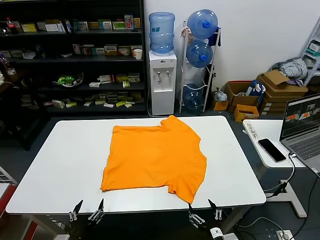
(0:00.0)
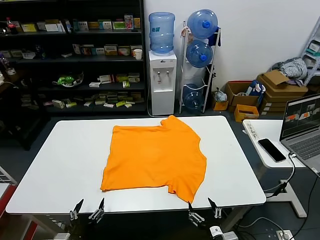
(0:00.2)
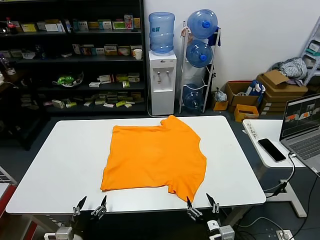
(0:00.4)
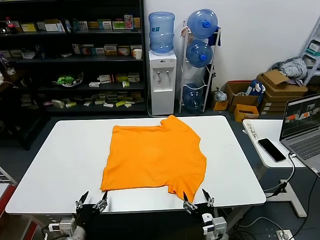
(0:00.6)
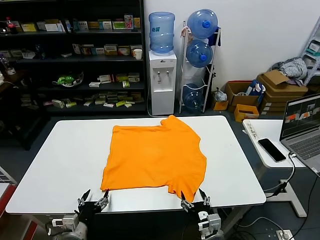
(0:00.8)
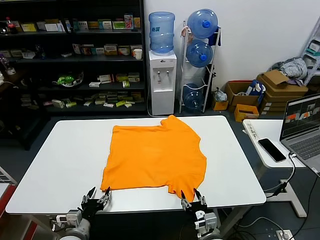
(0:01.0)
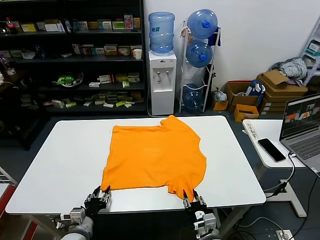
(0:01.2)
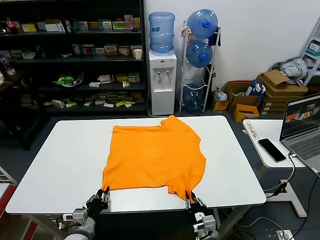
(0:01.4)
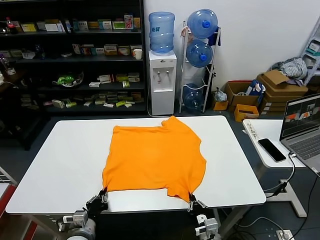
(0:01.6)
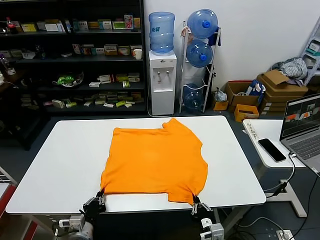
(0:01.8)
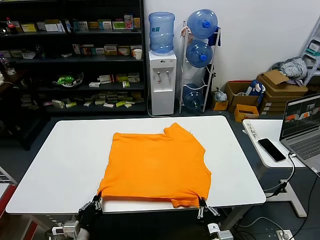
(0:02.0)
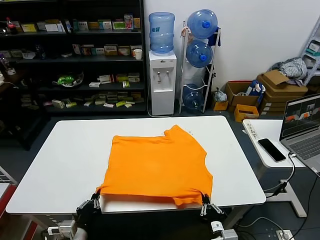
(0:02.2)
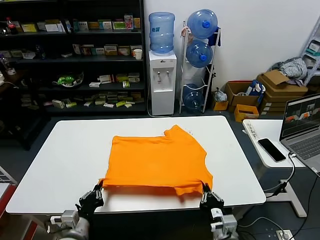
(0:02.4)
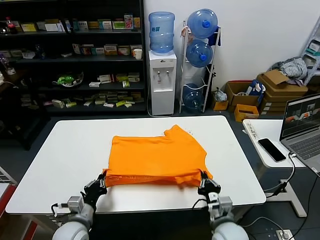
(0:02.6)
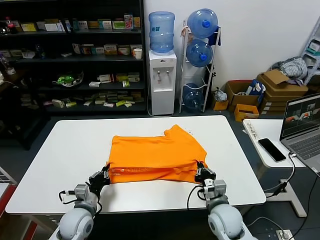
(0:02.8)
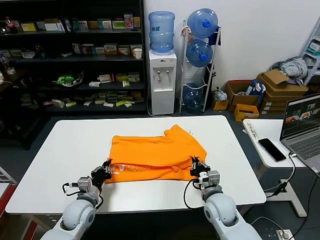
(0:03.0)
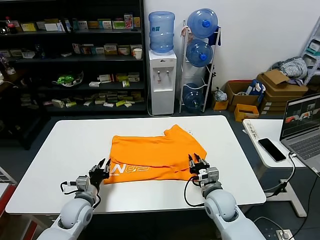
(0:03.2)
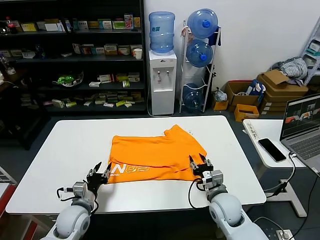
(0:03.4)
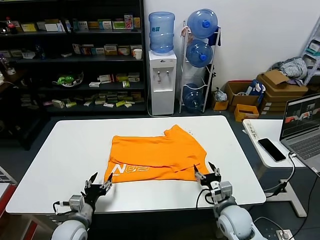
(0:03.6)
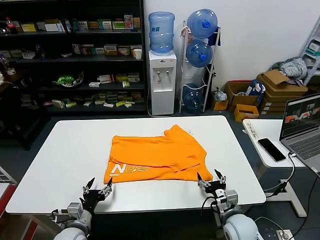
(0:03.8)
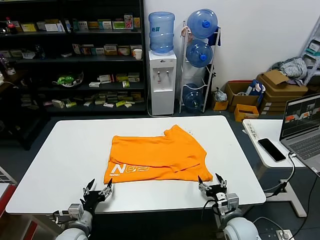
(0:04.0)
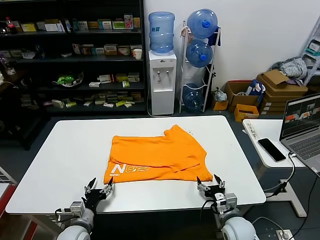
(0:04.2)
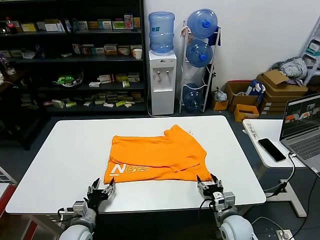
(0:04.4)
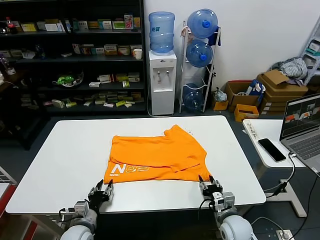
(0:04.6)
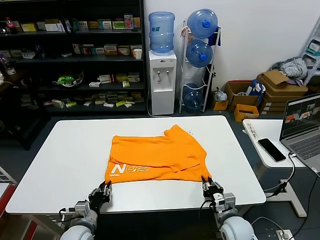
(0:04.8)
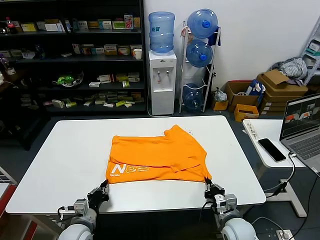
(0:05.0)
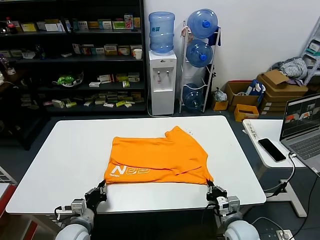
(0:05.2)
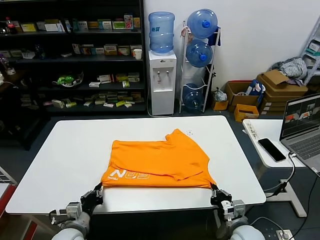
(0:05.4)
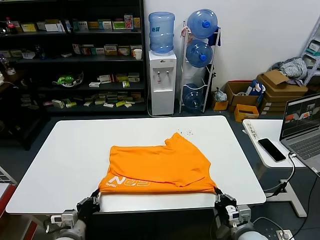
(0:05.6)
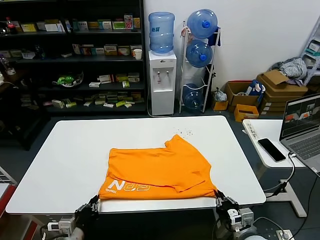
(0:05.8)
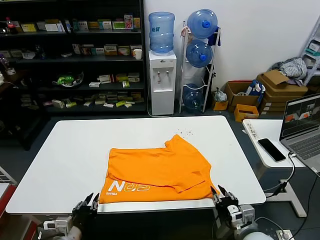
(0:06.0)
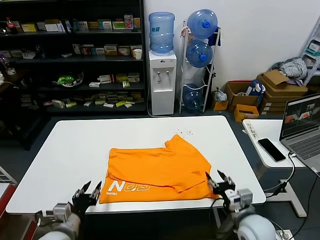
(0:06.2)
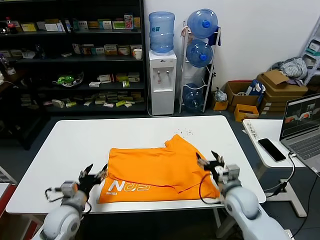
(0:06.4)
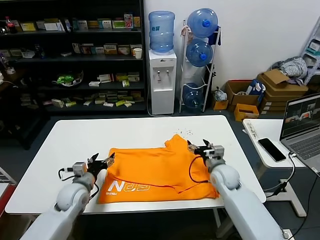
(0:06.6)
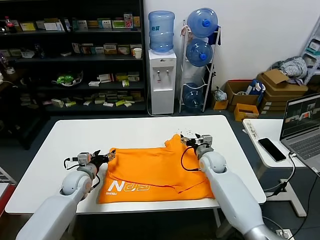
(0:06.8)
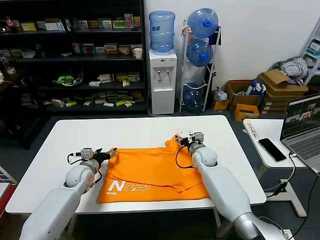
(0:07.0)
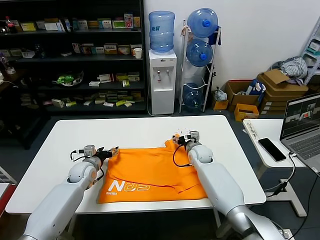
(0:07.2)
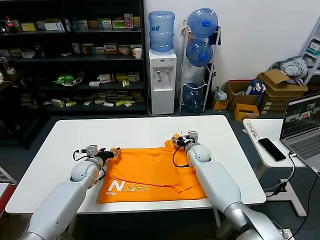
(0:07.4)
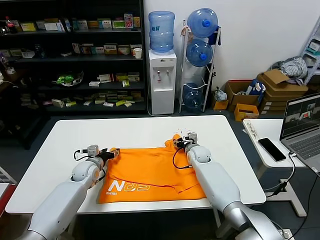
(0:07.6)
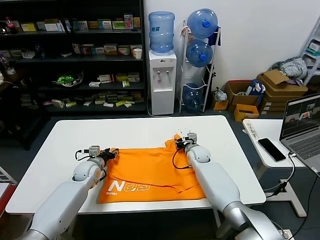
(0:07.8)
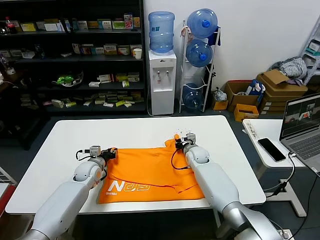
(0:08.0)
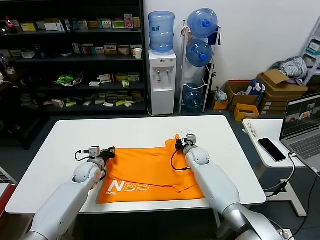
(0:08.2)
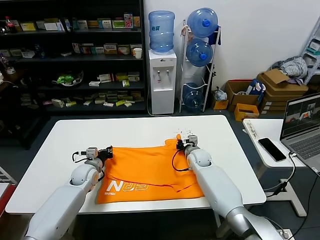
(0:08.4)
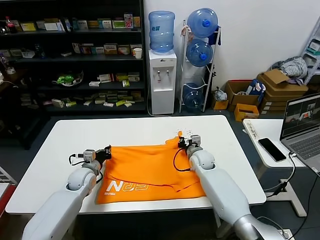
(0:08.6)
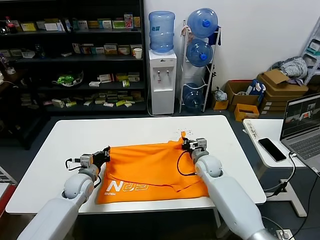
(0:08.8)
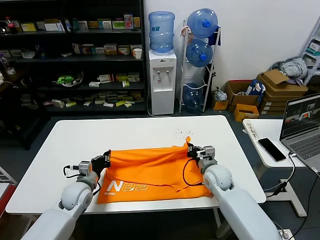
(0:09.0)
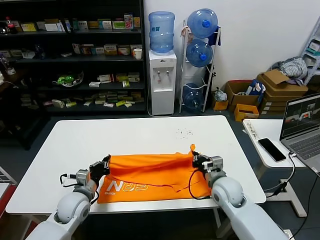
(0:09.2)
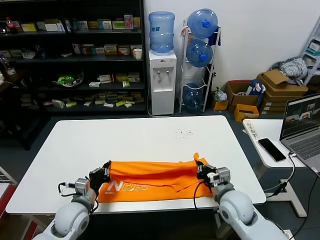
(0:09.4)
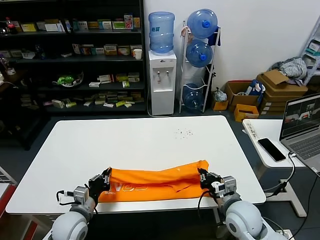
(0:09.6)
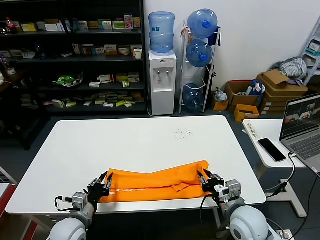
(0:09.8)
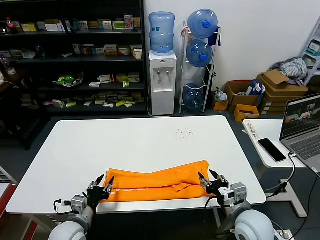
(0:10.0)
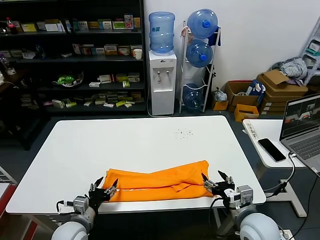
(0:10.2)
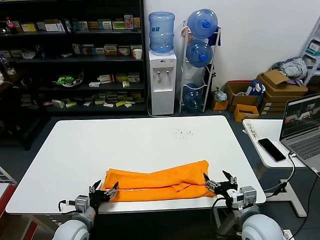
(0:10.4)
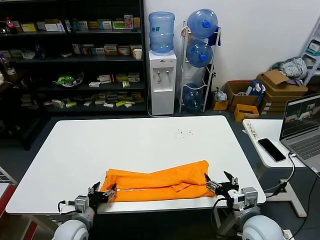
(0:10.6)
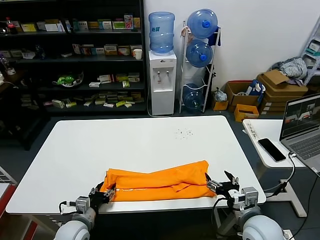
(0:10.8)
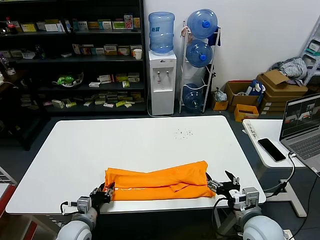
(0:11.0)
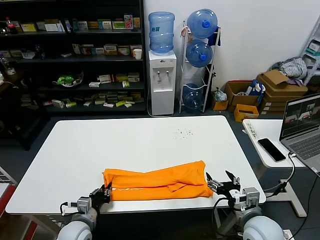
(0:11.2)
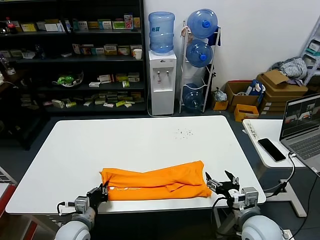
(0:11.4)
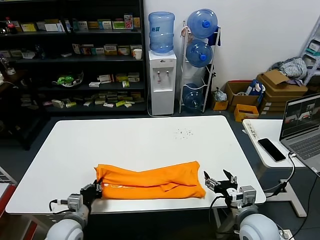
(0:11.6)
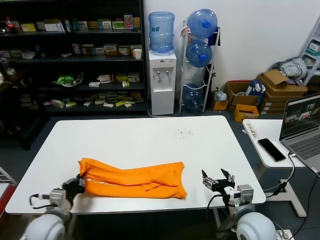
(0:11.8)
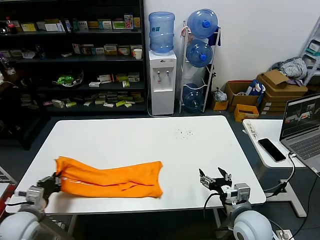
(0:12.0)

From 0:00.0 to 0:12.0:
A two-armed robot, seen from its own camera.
Task of the whole recording: fold and organize the clothes.
Step, from 0:00.0 to 0:01.6: use both grippers simultaneously to clamp the lower edge of the clothing fabric.
Step, from 0:01.8 to 0:03.2: use both grippers to drag the lower edge of the fabric forward and fold it over the upper edge.
Step, from 0:03.4 to 0:05.8: Drag the clothes downward with both gripper.
Step, from 0:06.0 to 0:08.2: use both grippers simultaneously to clamp the upper edge of the clothing fabric.
Step, from 0:08.4 to 0:09.8: use both grippers to drag the upper edge of the fabric backward and fold it over the lower edge.
Step, from 0:10.0 to 0:11.4: use the left gripper to clamp the left edge of the fabric.
From 0:01.6 to 0:03.0: The right gripper is displaced forward and upward by about 15 cm, while the left gripper is displaced forward by about 10 cm.
From 0:03.0 to 0:04.4: The right gripper is displaced downward and to the right by about 10 cm, and opens, while the left gripper is displaced backward by roughly 5 cm, and opens its fingers.
From 0:04.4 to 0:06.0: The right gripper travels backward and upward by approximately 10 cm, and closes, then opens again; the left gripper is displaced upward and backward by approximately 10 cm, and closes.
From 0:06.0 to 0:07.6: The grippers both shift forward by approximately 30 cm. The right gripper opens its fingers; the left gripper opens up.
From 0:07.6 to 0:09.0: Both grippers move backward, about 10 cm. The right gripper closes. The left gripper closes.
From 0:09.0 to 0:10.4: The left gripper moves backward, roughly 15 cm, and opens its fingers. Meanwhile the right gripper moves backward, approximately 20 cm, and opens its fingers.
From 0:10.4 to 0:12.0: The left gripper shifts some 15 cm to the left and upward, and closes its fingers.

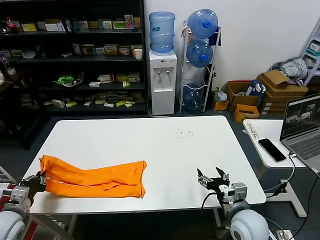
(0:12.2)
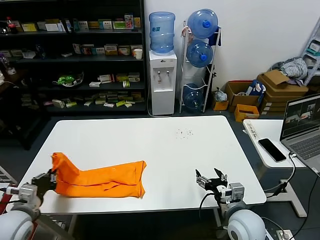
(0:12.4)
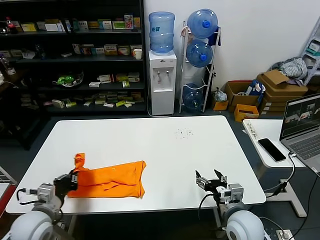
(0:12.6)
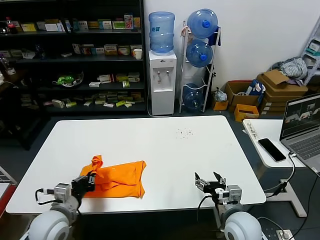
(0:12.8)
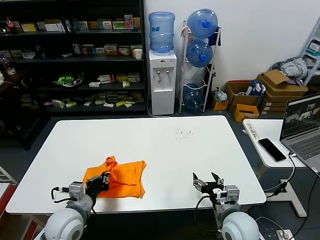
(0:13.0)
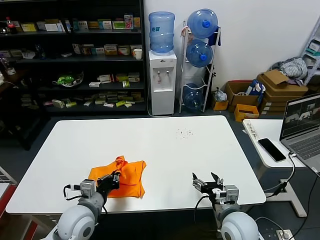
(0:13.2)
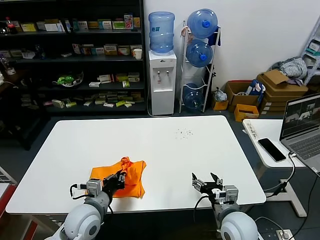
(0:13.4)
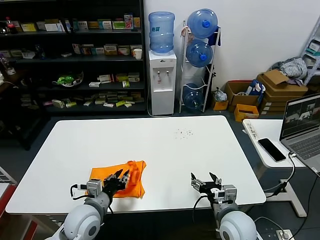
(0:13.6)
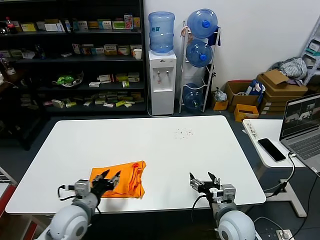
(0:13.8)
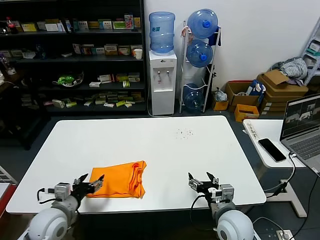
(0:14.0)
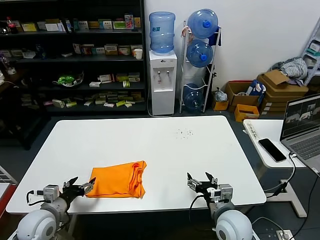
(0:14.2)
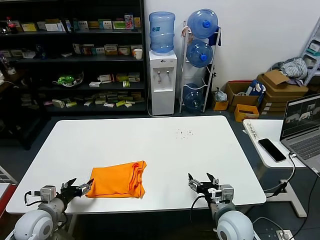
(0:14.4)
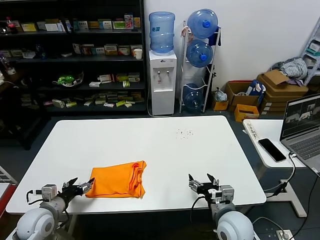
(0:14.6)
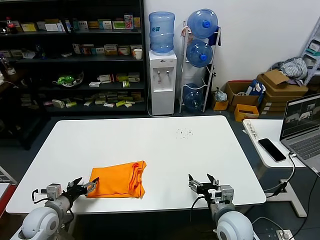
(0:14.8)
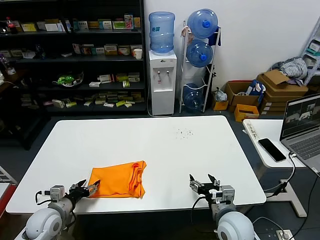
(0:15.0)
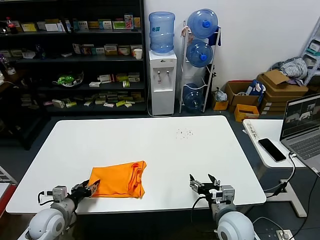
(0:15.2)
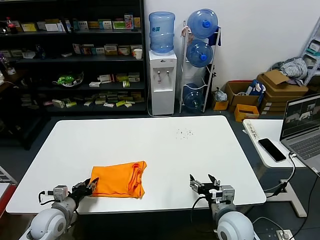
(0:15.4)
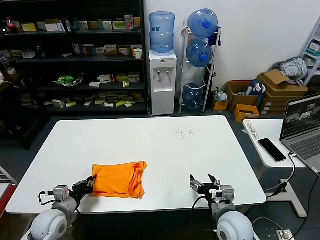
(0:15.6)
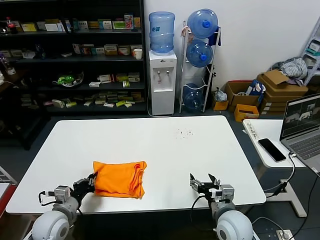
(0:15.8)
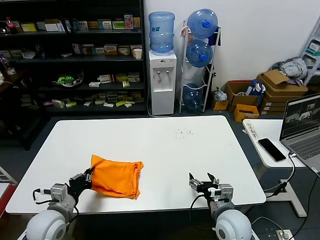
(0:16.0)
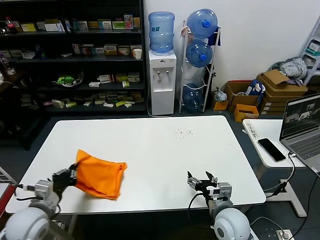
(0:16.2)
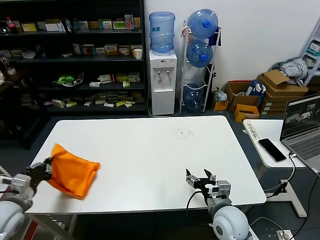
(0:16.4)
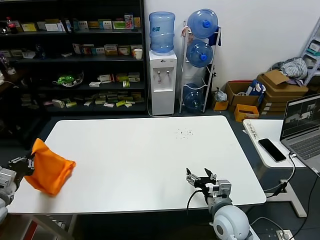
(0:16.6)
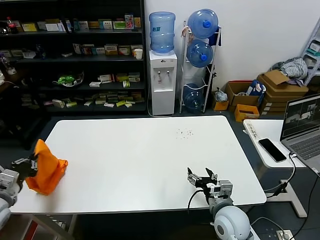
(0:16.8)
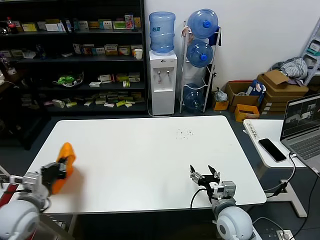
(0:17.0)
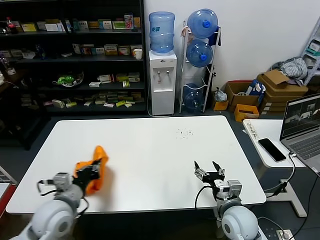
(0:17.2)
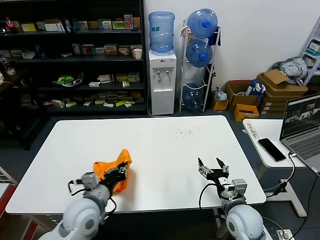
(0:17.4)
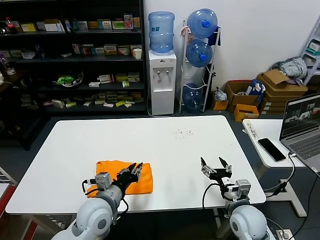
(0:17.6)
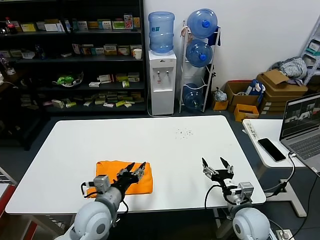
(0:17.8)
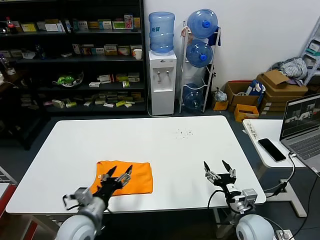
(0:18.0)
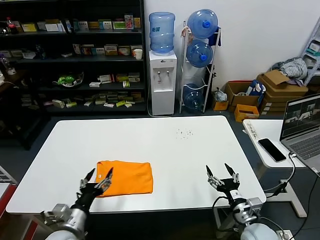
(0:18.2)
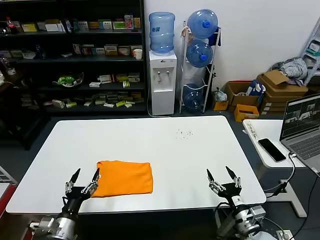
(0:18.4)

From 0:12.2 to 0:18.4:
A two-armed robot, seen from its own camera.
Task of the whole recording: fold and organize the clothes.
Step, from 0:12.2 to 0:13.6: use the left gripper to drag the left edge of the fabric to the left and folds it over the right edge.
Step, from 0:13.8 to 0:17.8: Flip the folded clothes over with left gripper.
From 0:12.2 to 0:13.8: The left gripper moves to the right, about 20 cm, and opens up.
From 0:13.8 to 0:15.4: The left gripper moves to the left and downward, about 15 cm, and opens, then closes once more.
From 0:15.4 to 0:16.8: The left gripper goes approximately 20 cm upward and to the left, and closes its fingers.
From 0:16.8 to 0:18.4: The right gripper is displaced to the right and backward by some 10 cm; the left gripper shifts about 20 cm to the right and downward, and opens.
